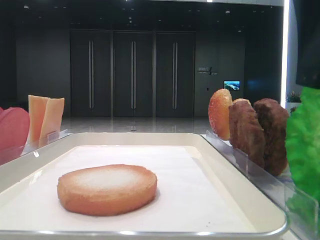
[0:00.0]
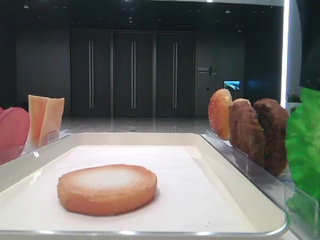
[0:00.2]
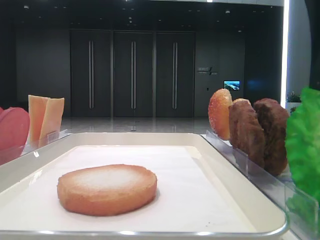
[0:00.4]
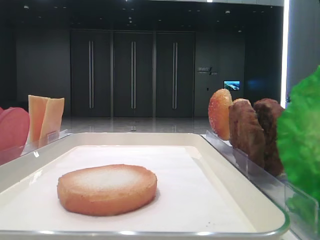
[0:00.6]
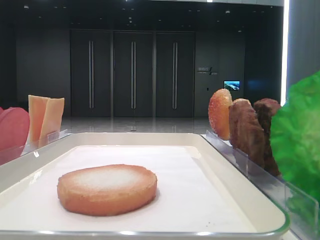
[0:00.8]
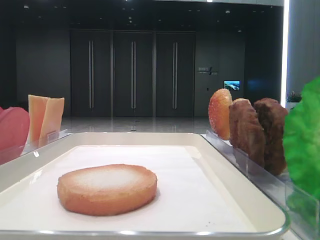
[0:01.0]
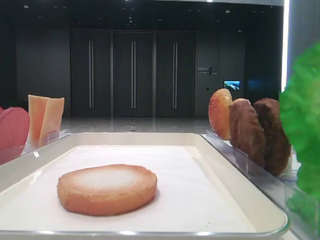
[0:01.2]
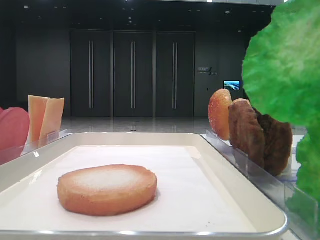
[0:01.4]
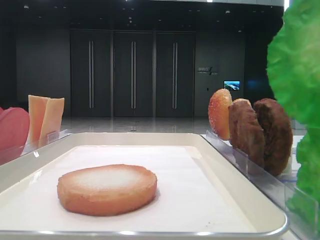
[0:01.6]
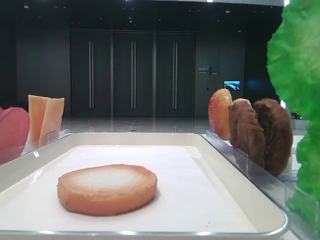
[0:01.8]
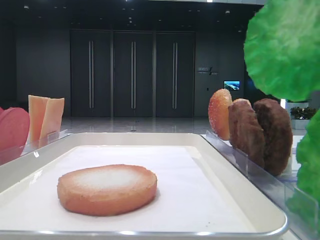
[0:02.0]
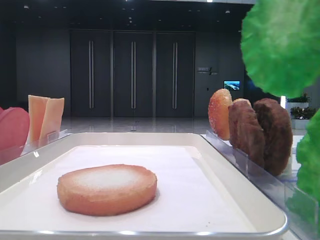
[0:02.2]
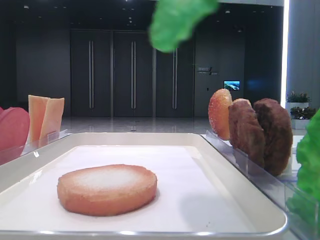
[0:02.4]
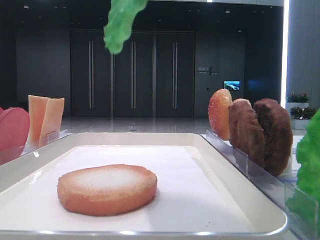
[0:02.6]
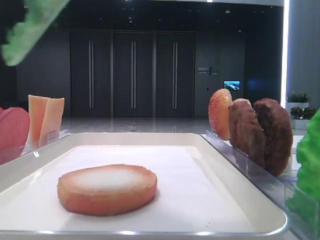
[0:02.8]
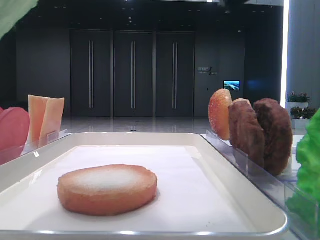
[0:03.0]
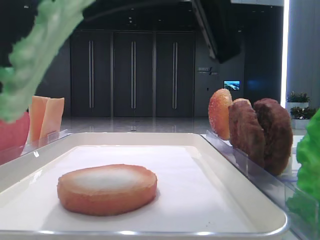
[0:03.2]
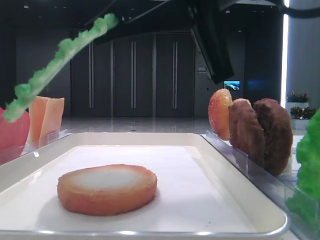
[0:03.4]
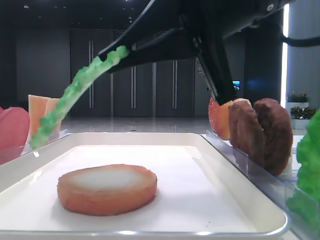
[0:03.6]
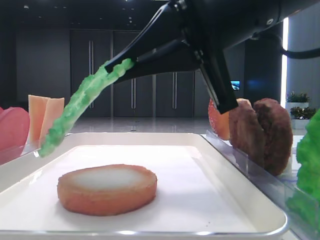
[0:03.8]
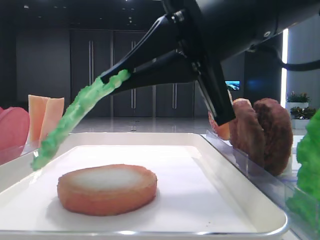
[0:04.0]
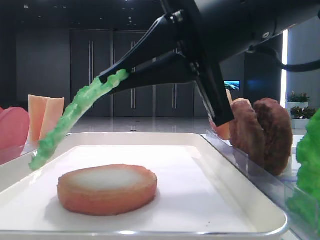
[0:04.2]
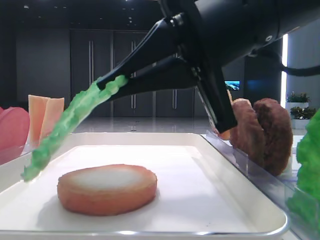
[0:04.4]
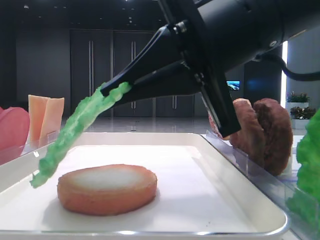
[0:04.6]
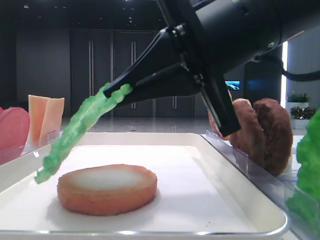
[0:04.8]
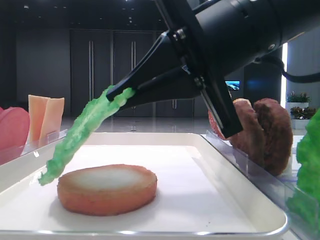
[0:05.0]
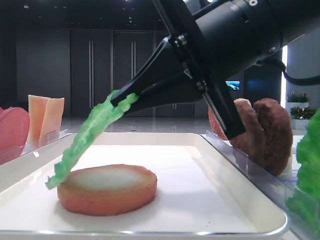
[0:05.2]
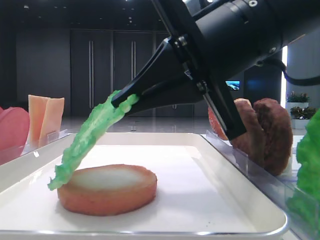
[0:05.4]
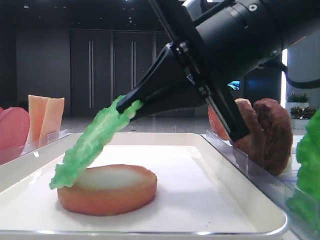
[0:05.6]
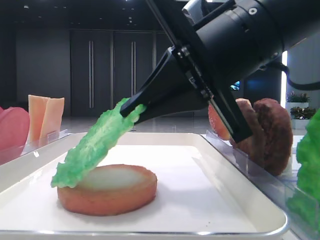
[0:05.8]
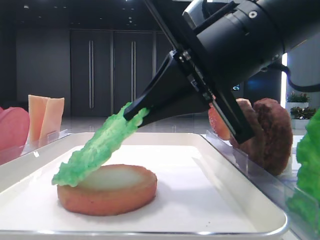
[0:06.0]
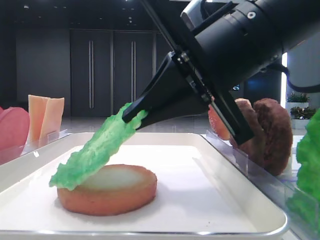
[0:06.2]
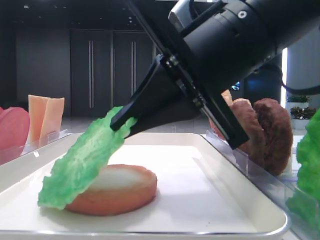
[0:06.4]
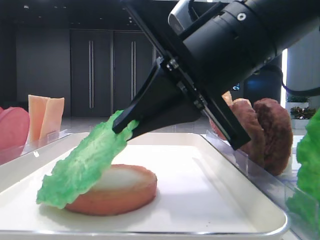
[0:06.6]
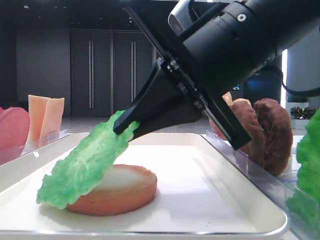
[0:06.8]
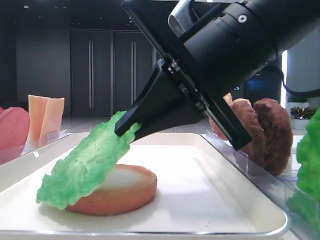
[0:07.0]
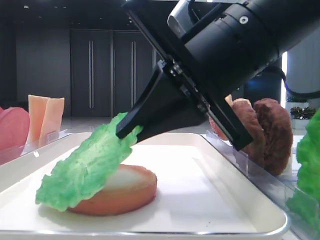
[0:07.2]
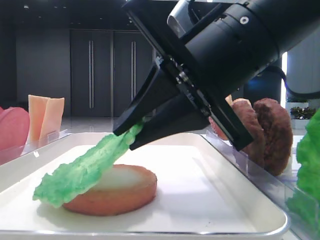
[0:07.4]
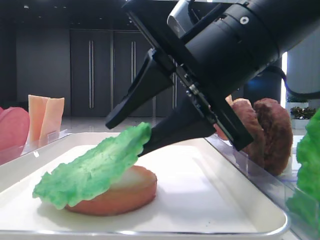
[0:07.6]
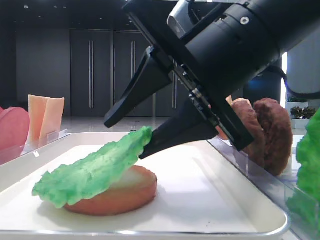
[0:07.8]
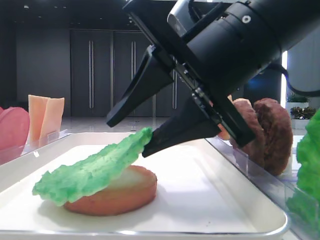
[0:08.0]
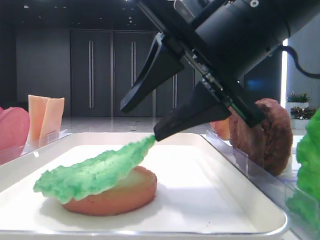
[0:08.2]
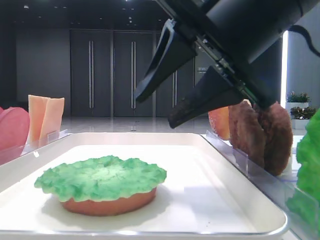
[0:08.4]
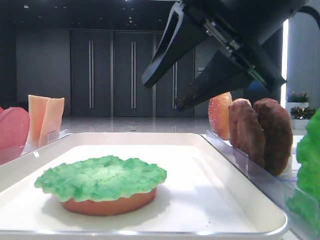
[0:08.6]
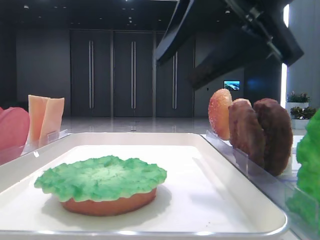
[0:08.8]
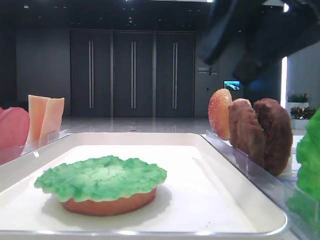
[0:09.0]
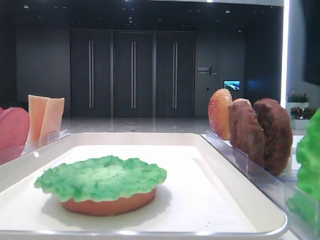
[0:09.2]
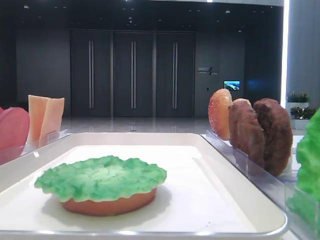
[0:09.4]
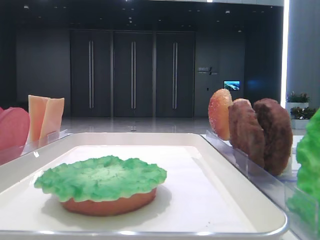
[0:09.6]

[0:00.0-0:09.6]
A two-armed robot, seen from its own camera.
Step, 0:00.6 to 0:08.2: Place the lettuce leaf on the bottom bread with the right hand.
0:00.0 to 0:01.6: The right gripper moves upward, some 5 cm, and closes.
0:01.6 to 0:03.2: The right gripper moves to the left and downward, about 10 cm.
0:03.2 to 0:04.8: The right gripper travels downward by approximately 5 cm.
0:04.8 to 0:06.4: The grippers move only a little.
0:06.4 to 0:08.0: The right gripper opens its fingers.
0:08.0 to 0:09.6: The right gripper travels to the right, upward and backward by roughly 20 cm.

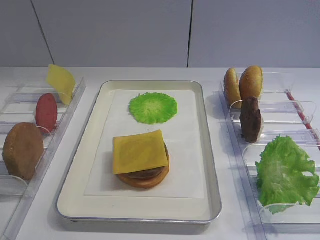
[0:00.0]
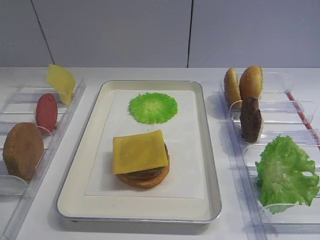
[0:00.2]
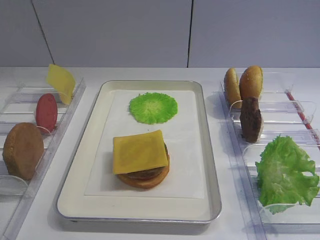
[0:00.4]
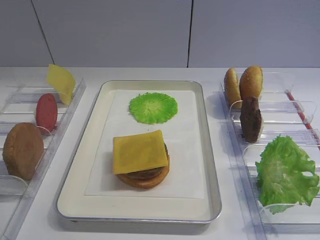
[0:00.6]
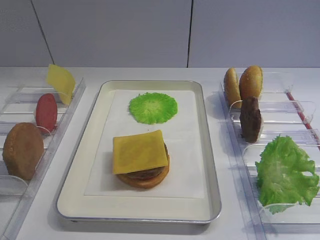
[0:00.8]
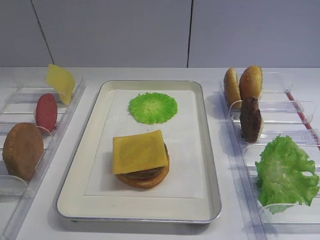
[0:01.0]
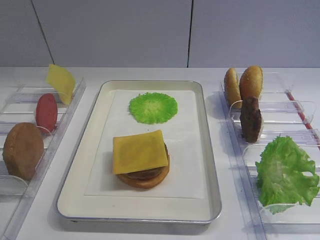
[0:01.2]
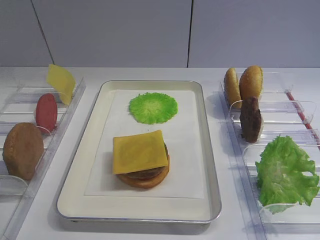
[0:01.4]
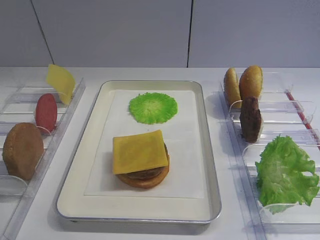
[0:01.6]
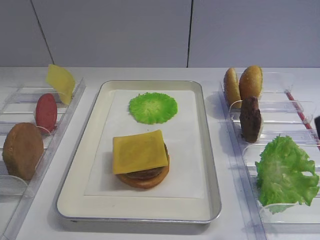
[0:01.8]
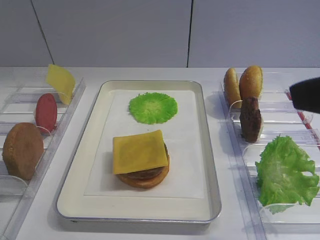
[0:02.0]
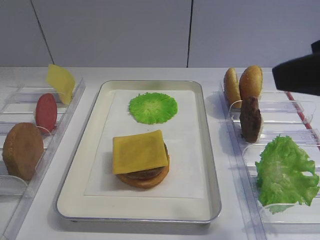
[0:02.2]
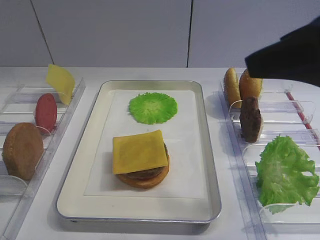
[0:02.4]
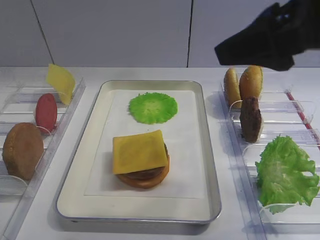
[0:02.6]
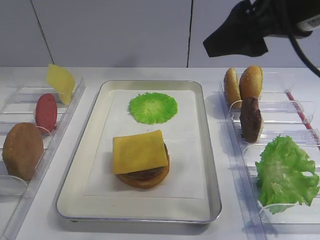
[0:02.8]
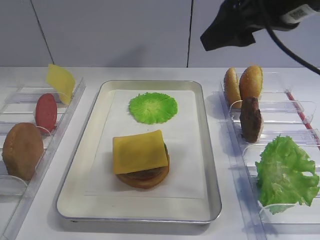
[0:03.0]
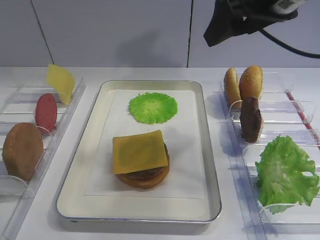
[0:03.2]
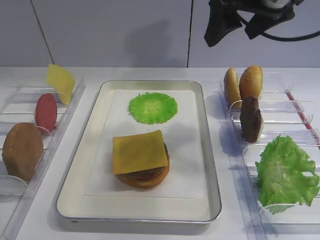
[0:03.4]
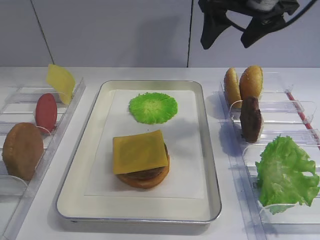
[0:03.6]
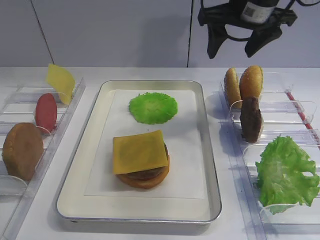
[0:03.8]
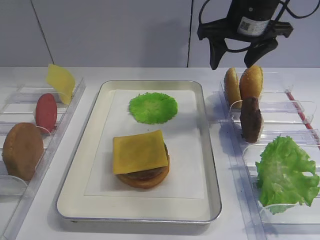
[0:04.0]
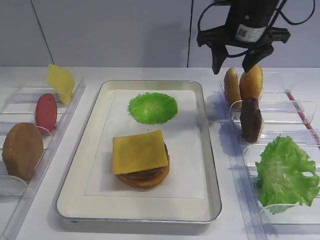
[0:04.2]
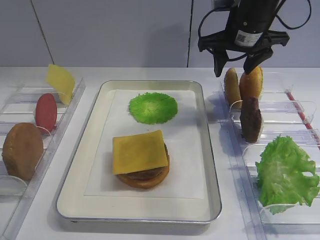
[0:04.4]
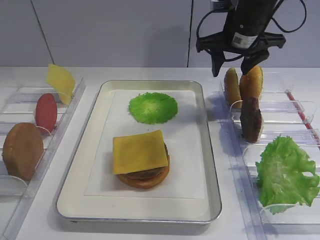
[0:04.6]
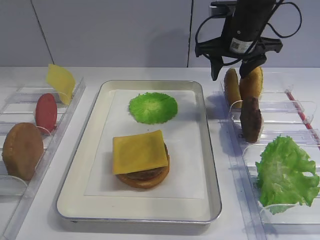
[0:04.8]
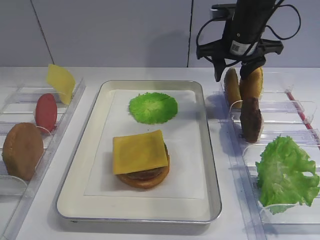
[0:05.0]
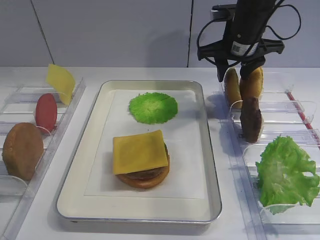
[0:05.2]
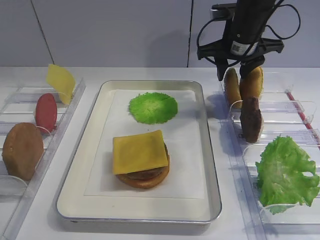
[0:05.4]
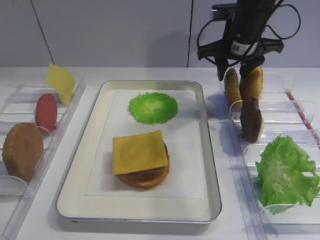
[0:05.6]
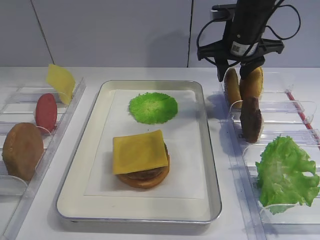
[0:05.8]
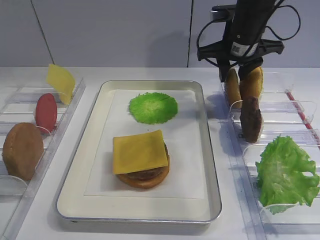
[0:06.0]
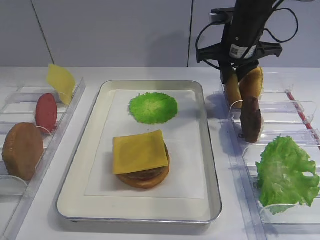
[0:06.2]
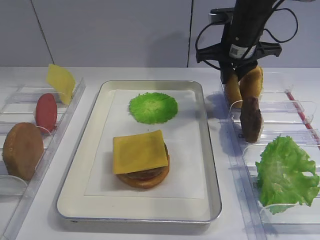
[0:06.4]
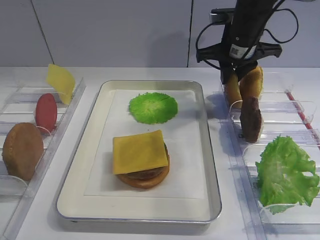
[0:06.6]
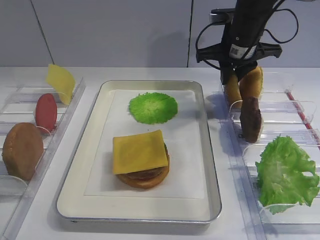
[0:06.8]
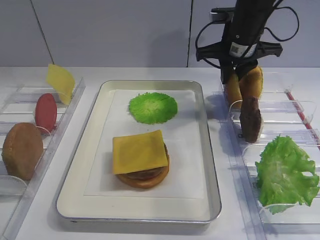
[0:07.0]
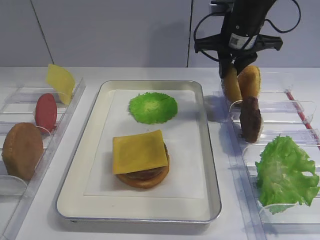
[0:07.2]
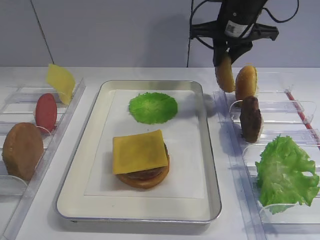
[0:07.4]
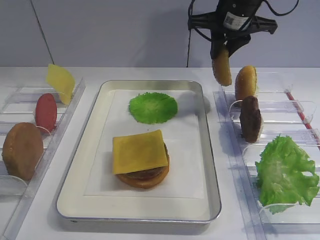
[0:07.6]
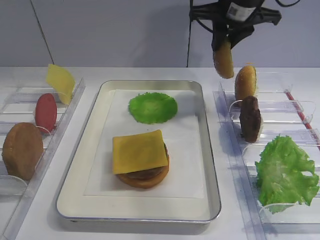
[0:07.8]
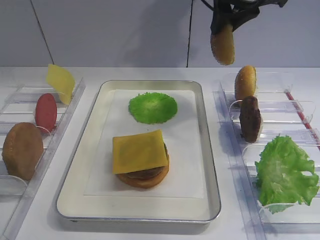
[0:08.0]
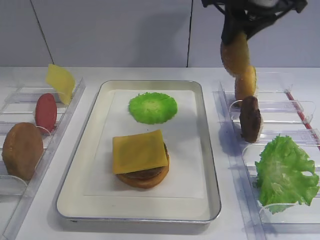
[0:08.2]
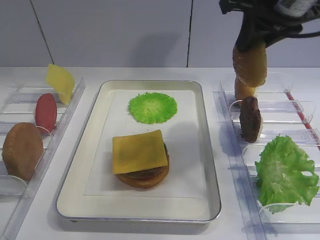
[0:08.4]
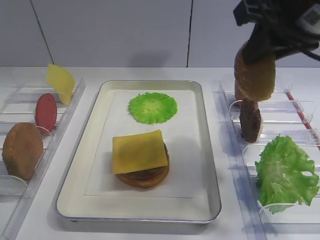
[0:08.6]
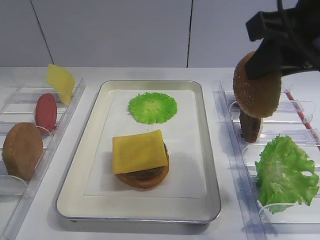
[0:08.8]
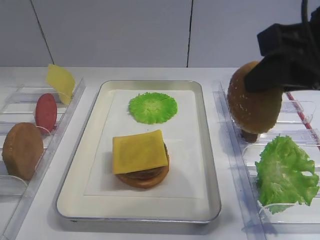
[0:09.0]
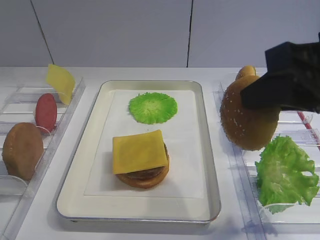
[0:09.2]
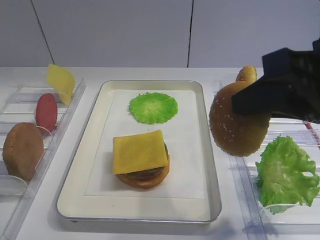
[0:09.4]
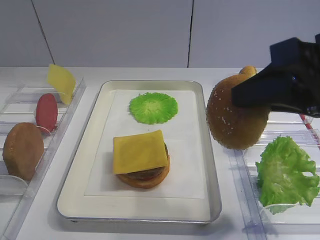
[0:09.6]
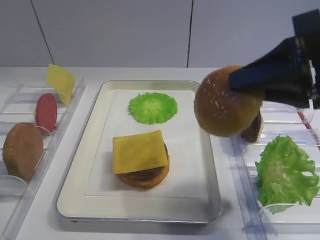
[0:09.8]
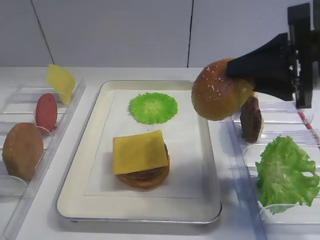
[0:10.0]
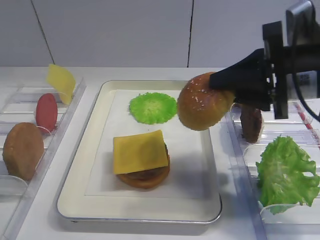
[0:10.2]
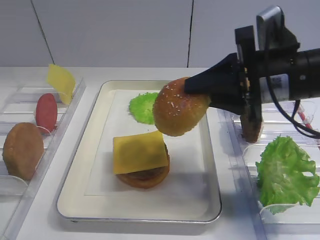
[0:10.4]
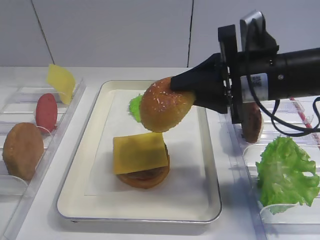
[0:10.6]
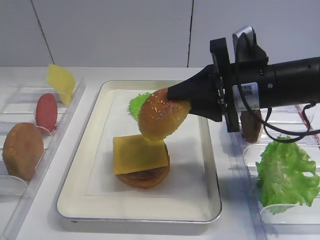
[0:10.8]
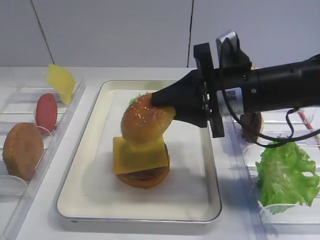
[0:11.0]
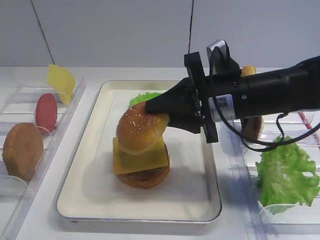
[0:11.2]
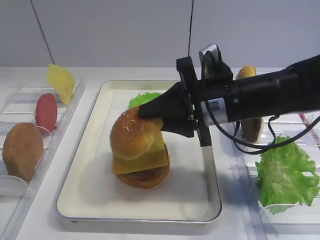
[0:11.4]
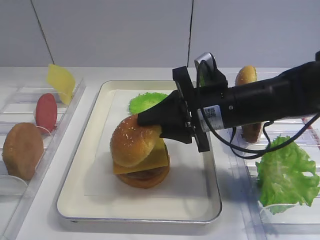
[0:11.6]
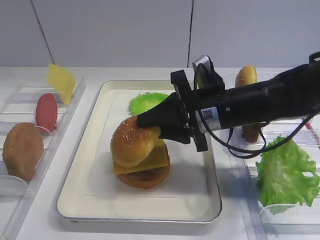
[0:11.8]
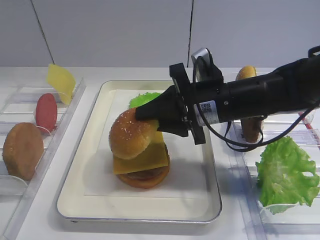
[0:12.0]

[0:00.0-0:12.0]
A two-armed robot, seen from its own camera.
Step, 0:00.0 to 0:07.4: Pick up the hamburger lid with the right gripper.
0:01.6 to 0:03.0: The right gripper moves forward, about 20 cm.
0:03.0 to 0:04.4: The right gripper shifts some 15 cm forward and downward.
0:04.4 to 0:06.0: There are only small adjustments of the grippers.
0:06.0 to 0:07.6: The right gripper moves approximately 5 cm.
0:07.6 to 0:09.0: The right gripper shifts about 25 cm backward.
0:09.0 to 0:10.4: The right gripper shifts approximately 10 cm downward and forward.
0:10.4 to 0:12.0: The right gripper travels to the left and downward by some 10 cm.

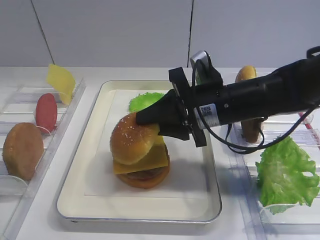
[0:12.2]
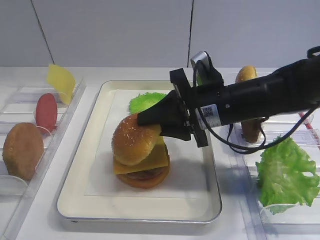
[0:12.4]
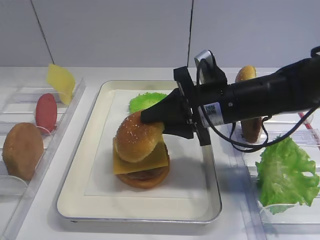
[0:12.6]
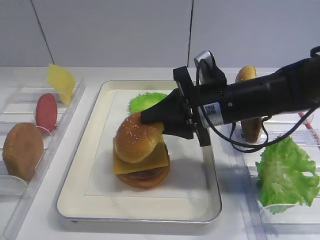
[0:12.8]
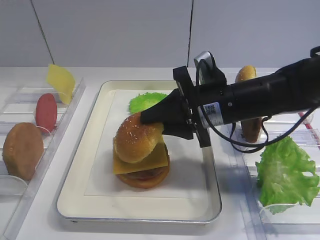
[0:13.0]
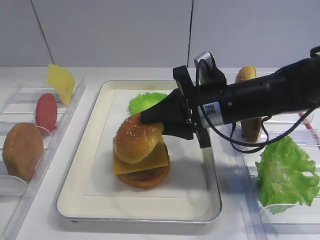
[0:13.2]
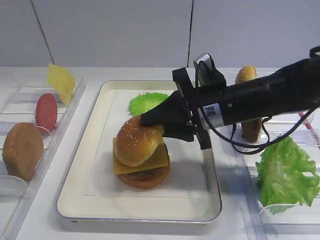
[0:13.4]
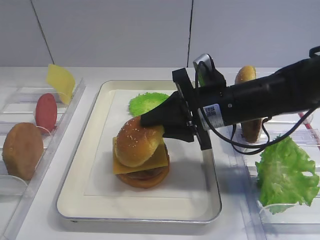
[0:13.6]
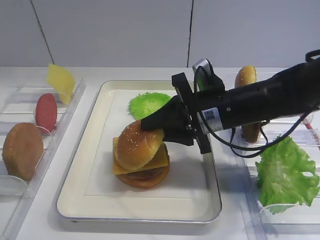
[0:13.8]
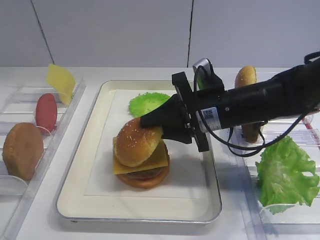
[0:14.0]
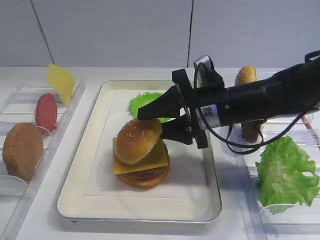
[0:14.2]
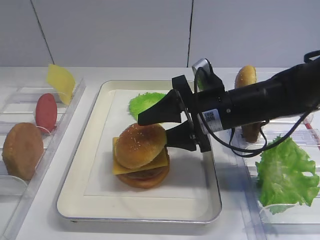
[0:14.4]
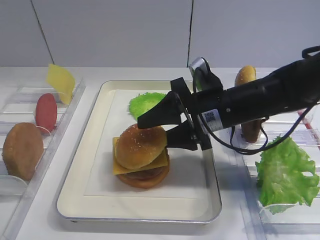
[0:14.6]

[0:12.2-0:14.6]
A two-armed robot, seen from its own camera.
0:12.2 to 0:13.4: Neither gripper changes place.
0:13.4 to 0:14.6: The right gripper opens.
